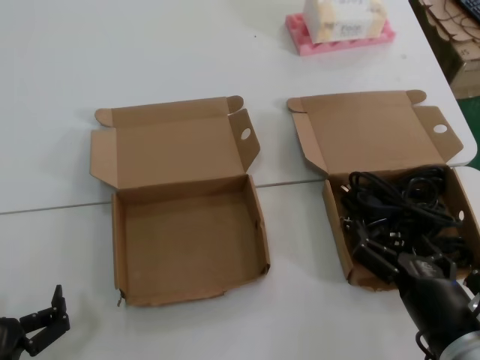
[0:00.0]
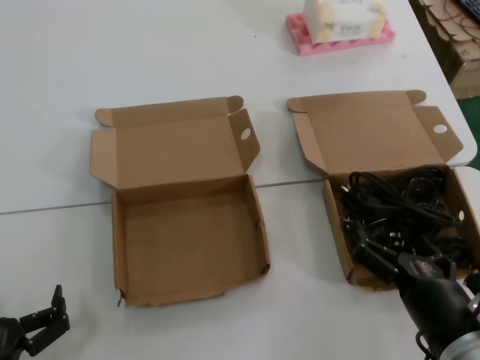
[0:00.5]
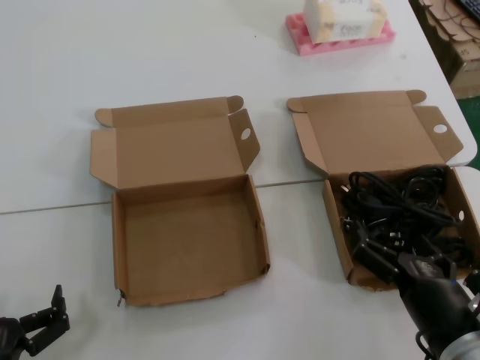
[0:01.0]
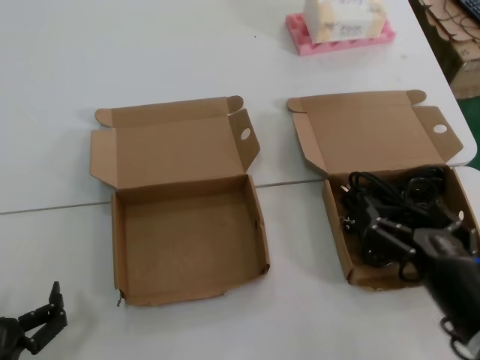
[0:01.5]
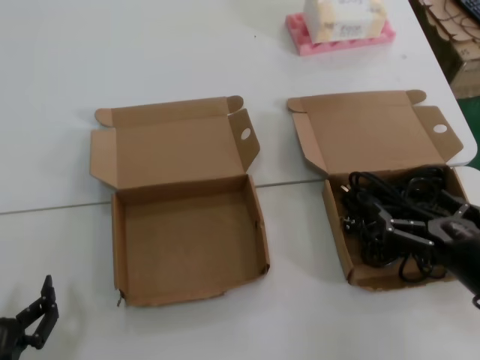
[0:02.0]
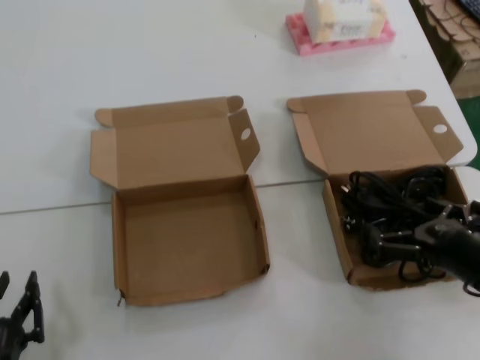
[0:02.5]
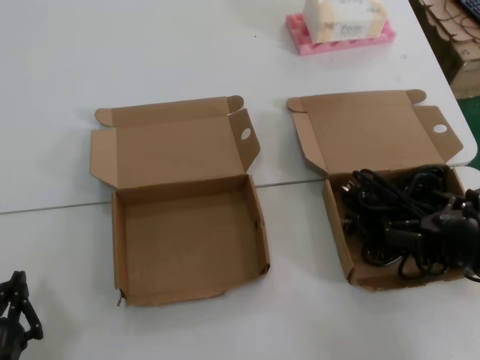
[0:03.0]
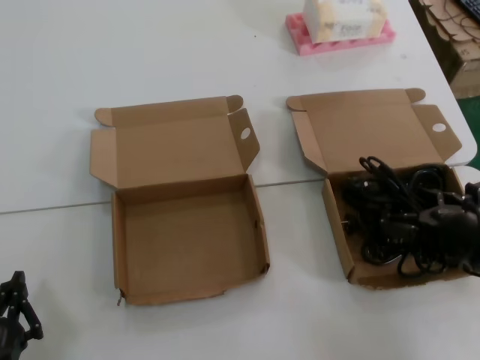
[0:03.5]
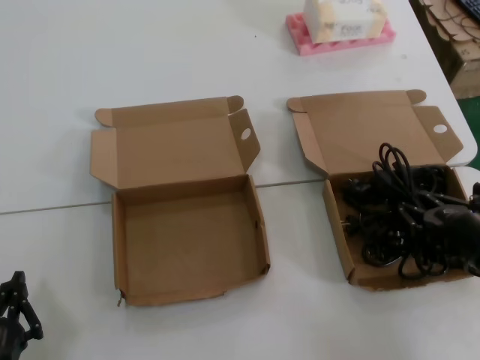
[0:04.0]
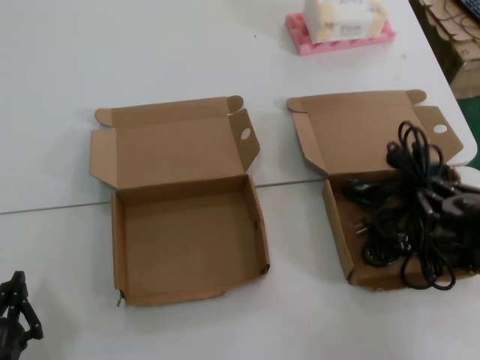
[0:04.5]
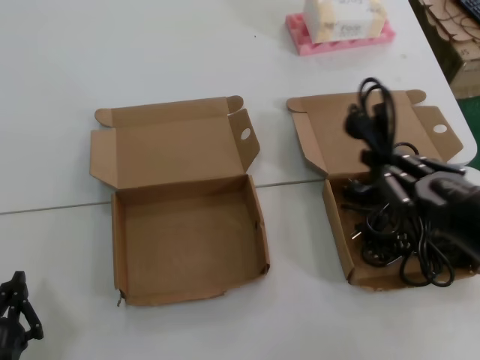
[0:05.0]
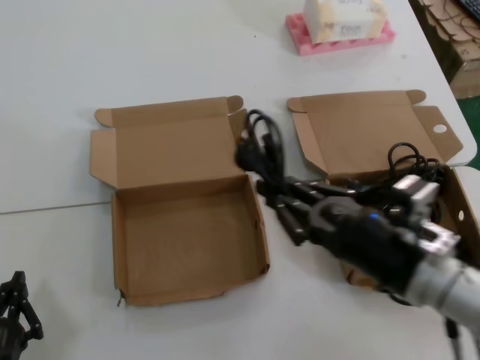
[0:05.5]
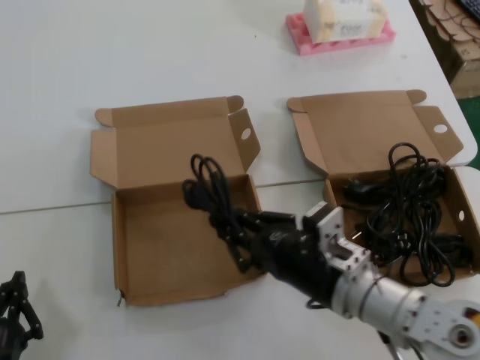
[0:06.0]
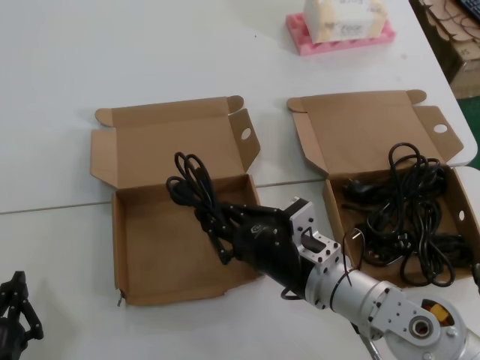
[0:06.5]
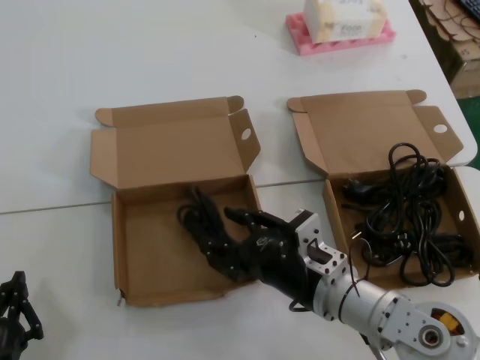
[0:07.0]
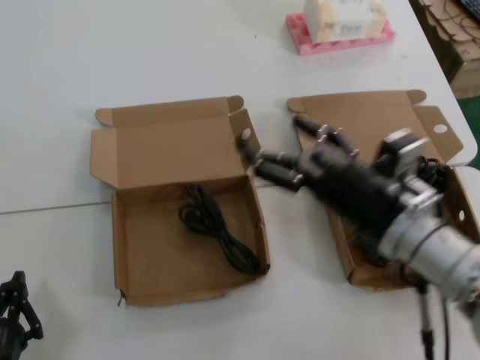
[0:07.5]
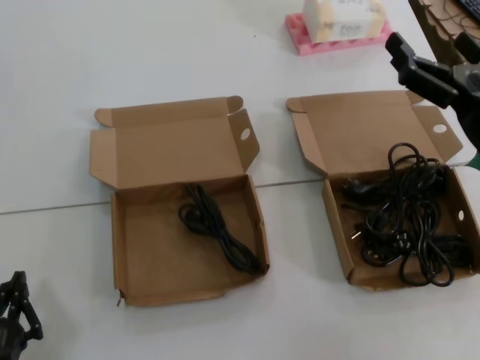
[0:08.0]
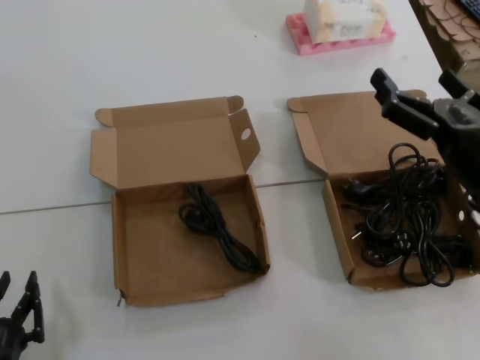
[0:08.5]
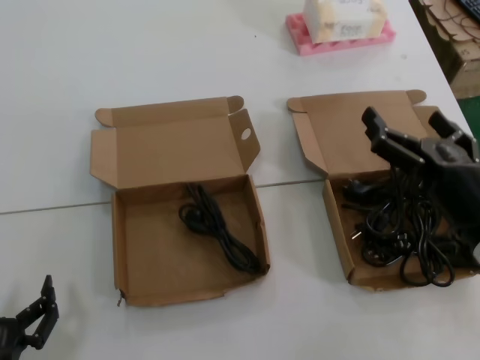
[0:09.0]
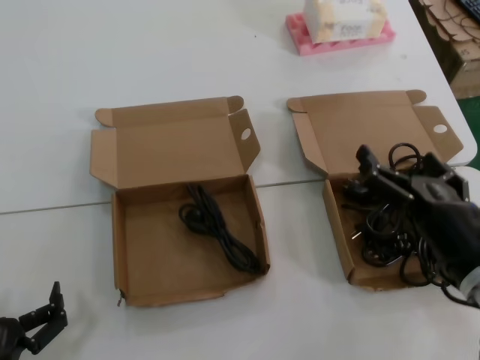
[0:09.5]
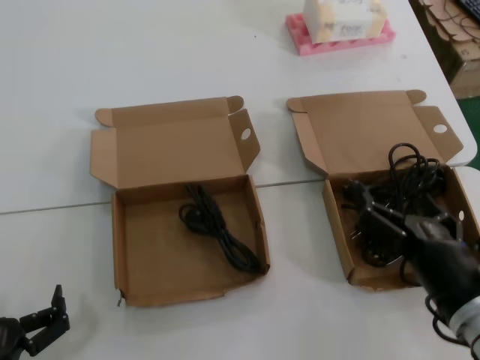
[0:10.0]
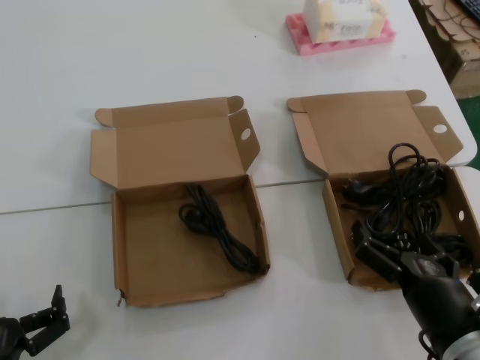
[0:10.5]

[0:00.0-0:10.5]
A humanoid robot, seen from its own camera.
Task of the whole recording: Pick up the power cord from the box containing it and place it in another box.
Step, 0:00.0 to 0:03.5: Grasp the data cable.
Step, 0:04.0 to 0:07.0: Place the data cable in the another box.
0:00.0 to 0:02.0: The right hand moves to the right and upward, some 10 cm.
0:02.0 to 0:04.0: The right hand moves forward, approximately 10 cm.
0:04.0 to 0:06.5: The right hand is displaced to the left by roughly 25 cm.
0:06.5 to 0:08.5: The right hand moves to the right and upward, about 20 cm.
0:08.5 to 0:10.5: The right hand is displaced downward, backward and to the left by approximately 15 cm.
